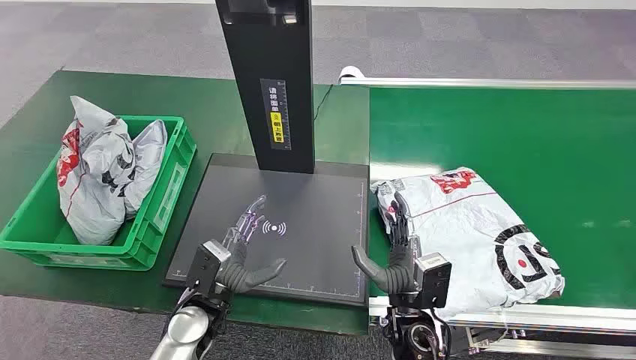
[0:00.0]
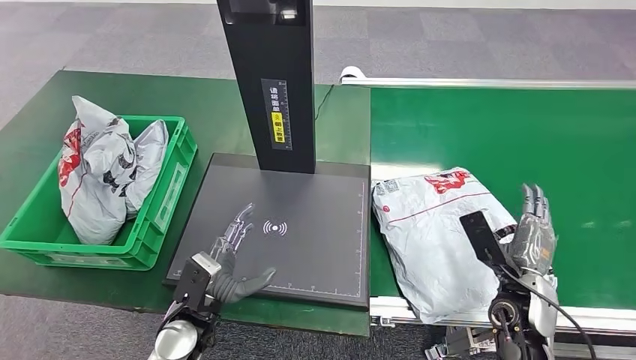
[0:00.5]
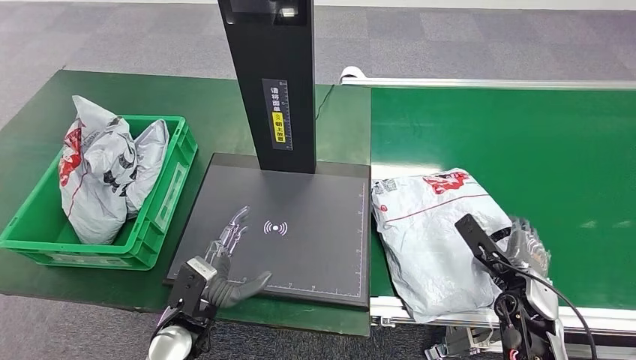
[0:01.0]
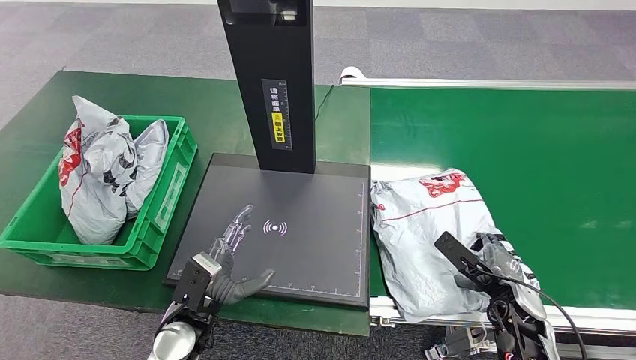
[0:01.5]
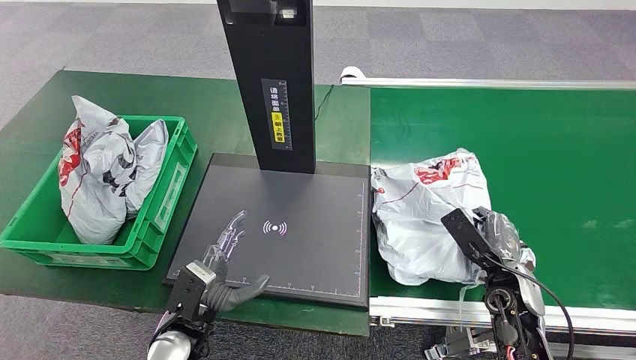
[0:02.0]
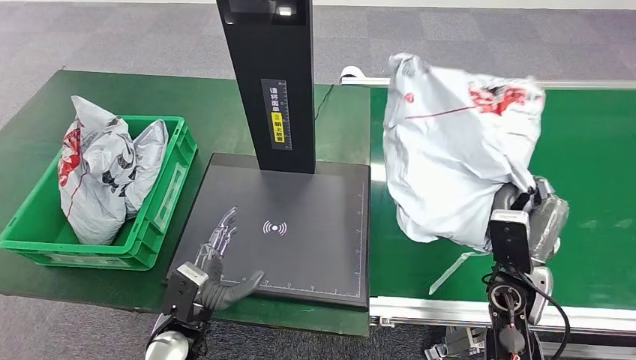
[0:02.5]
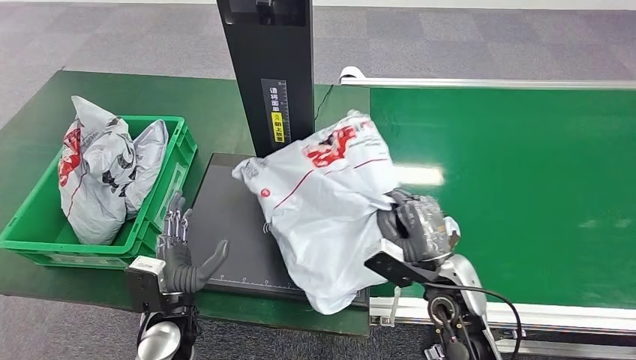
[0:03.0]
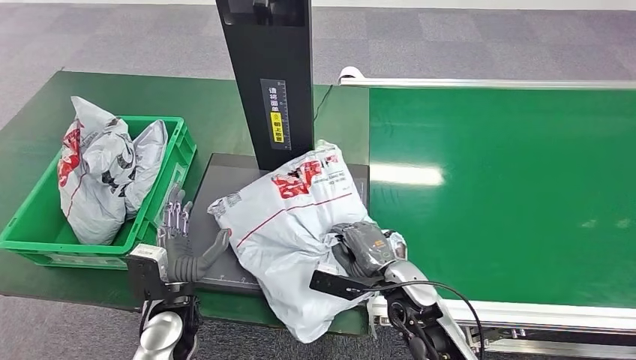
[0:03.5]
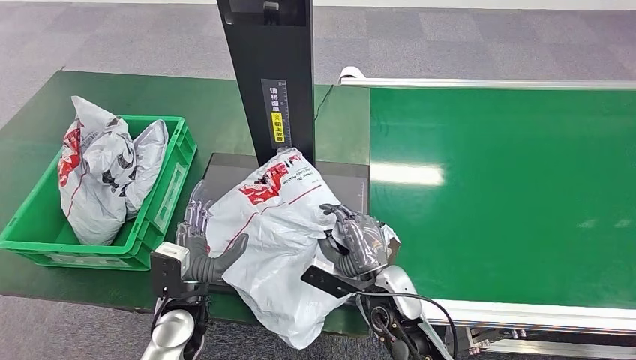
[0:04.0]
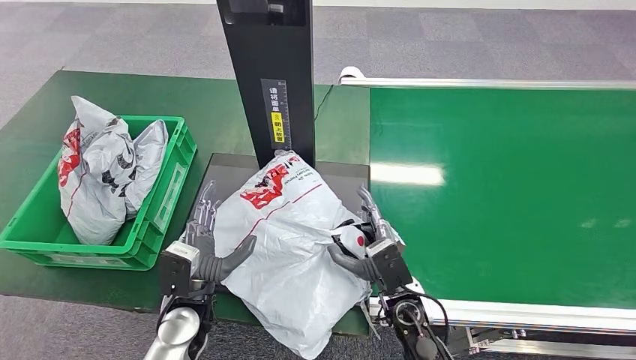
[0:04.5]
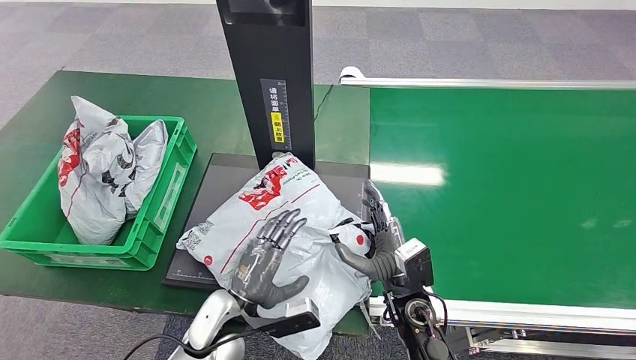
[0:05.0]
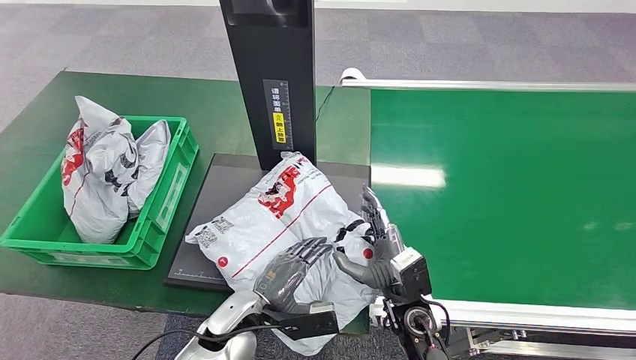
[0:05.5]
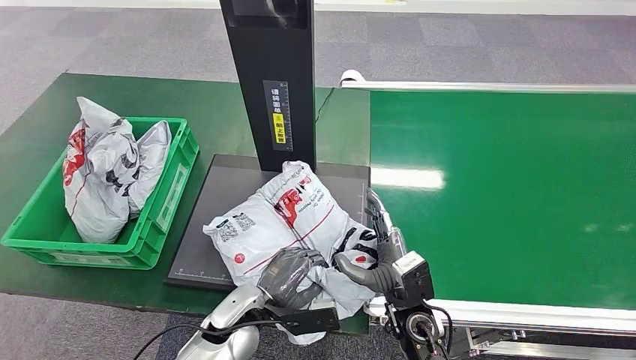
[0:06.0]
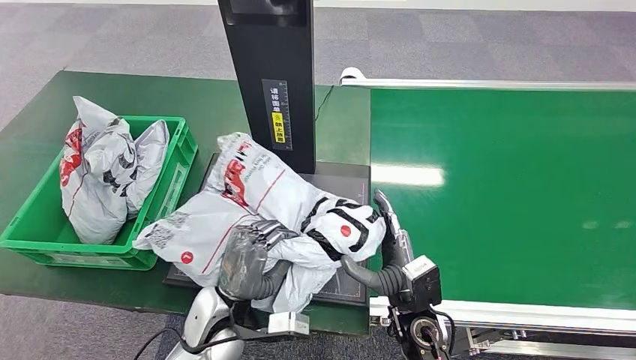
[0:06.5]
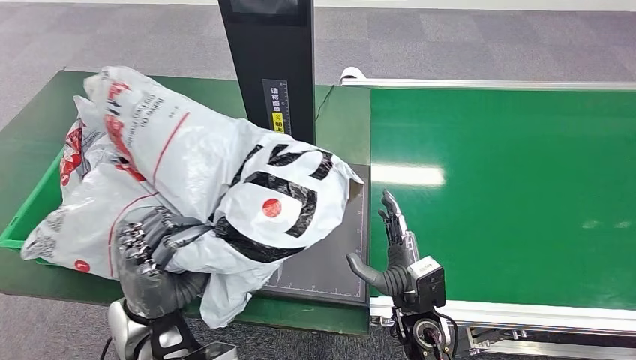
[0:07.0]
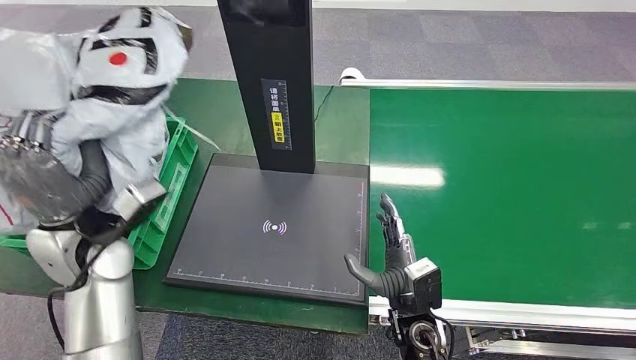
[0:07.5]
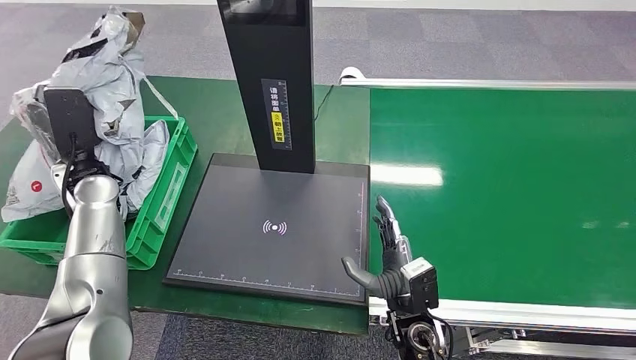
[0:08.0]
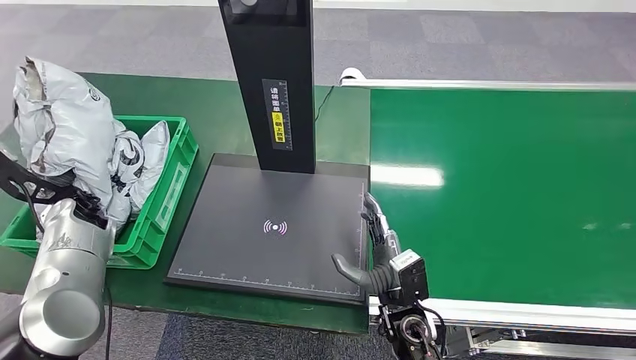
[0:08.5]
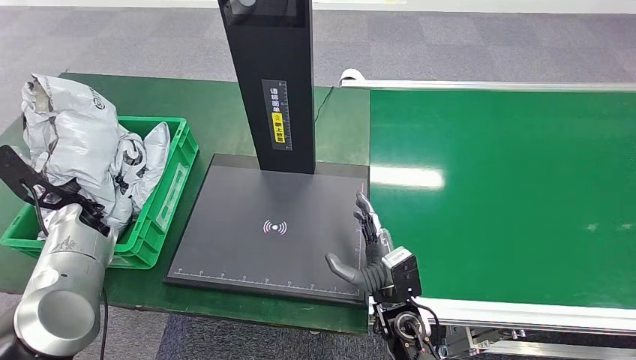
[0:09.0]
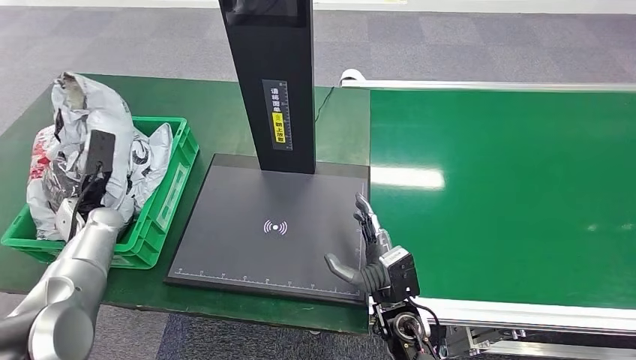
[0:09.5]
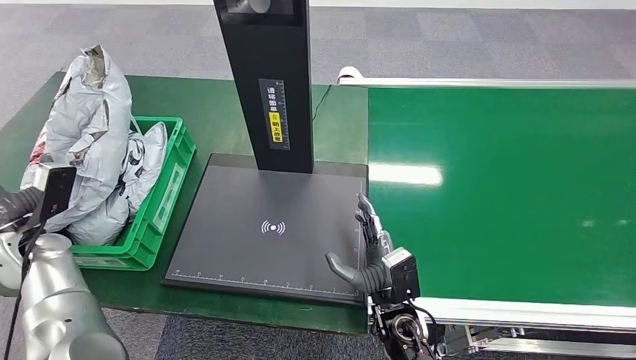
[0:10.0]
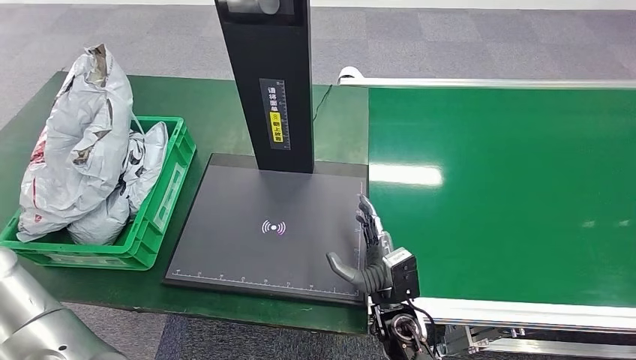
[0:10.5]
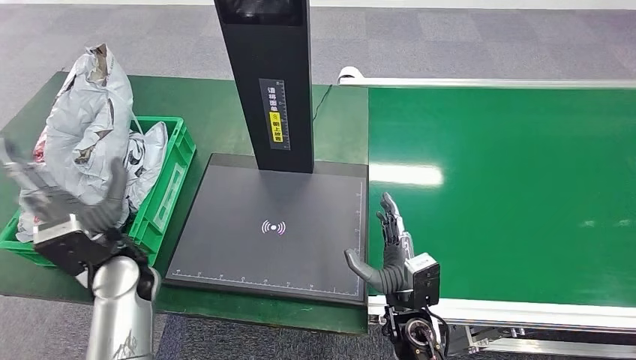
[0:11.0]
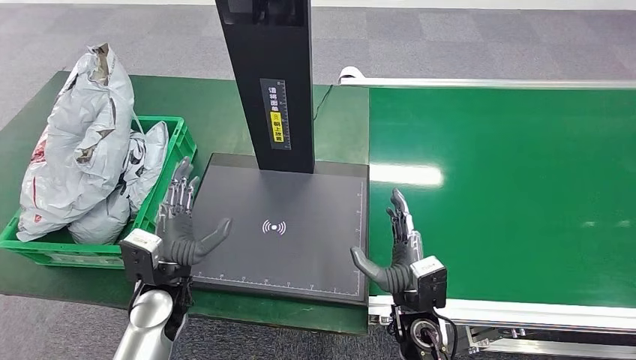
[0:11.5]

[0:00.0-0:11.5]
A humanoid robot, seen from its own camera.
Step, 0:00.0 to 0:02.5: Pick up the package from the conveyor belt.
Step, 0:03.0 to 0:05.0: Place the package onto the inbound machine.
Step, 0:05.5 to 0:07.0: Pick up the package from the inbound machine.
Step, 0:07.5 to 0:11.5: Place the package into the parcel locker.
